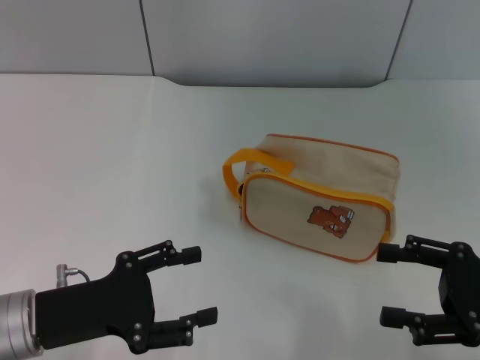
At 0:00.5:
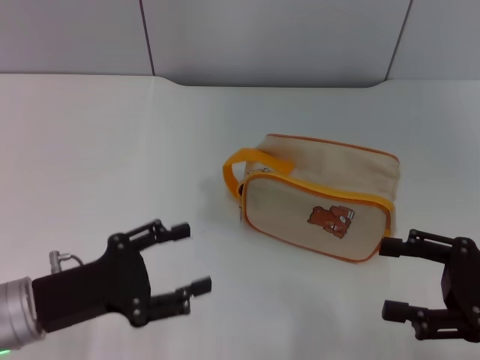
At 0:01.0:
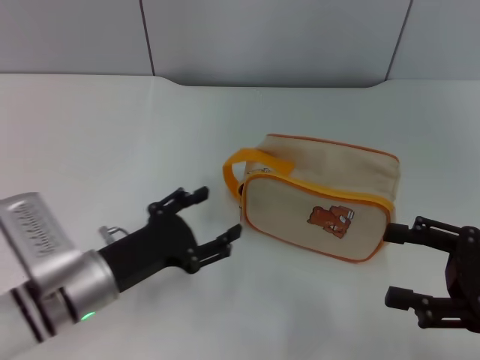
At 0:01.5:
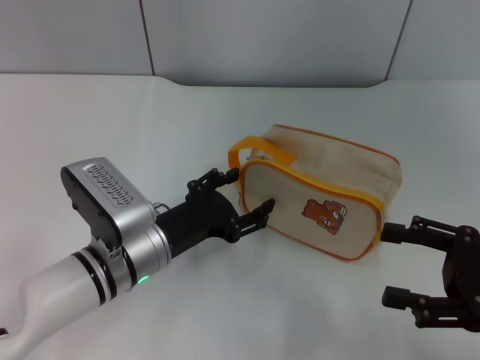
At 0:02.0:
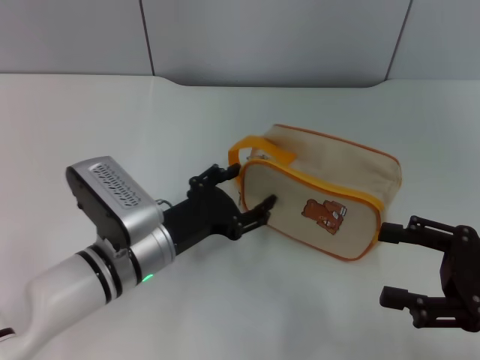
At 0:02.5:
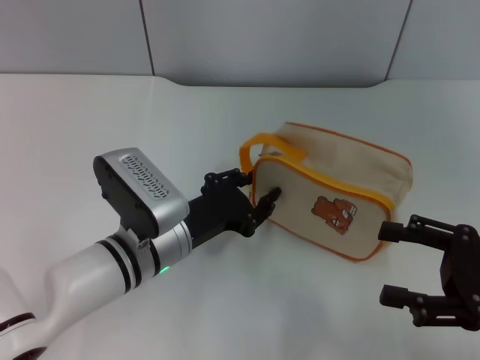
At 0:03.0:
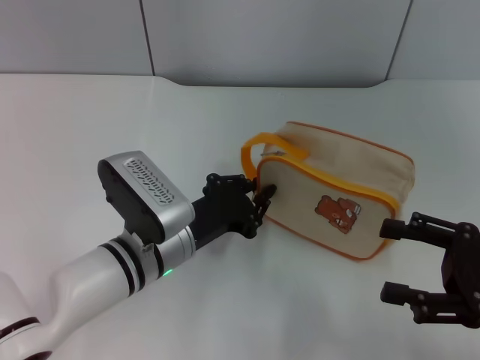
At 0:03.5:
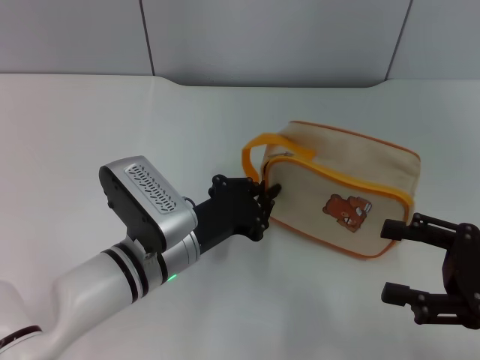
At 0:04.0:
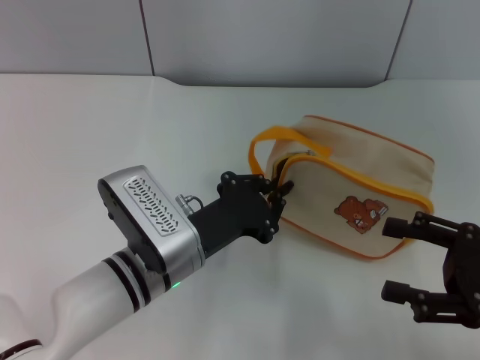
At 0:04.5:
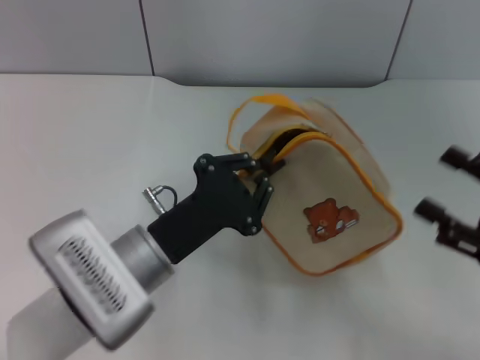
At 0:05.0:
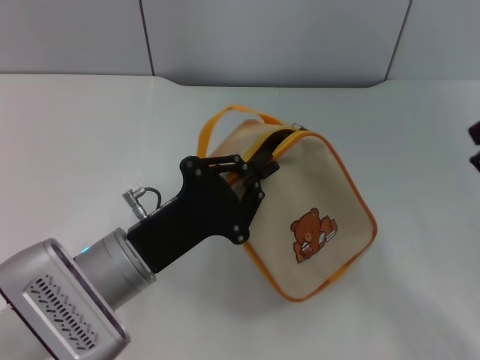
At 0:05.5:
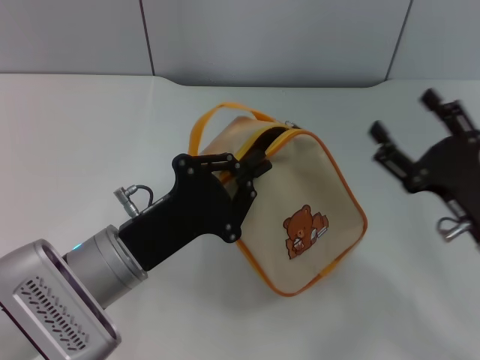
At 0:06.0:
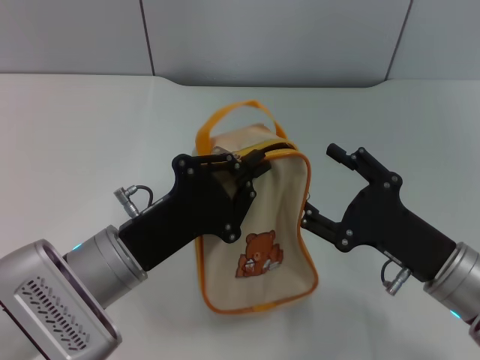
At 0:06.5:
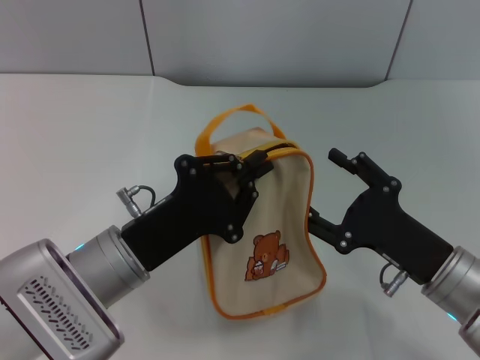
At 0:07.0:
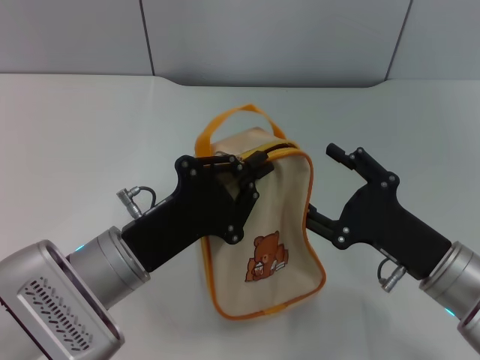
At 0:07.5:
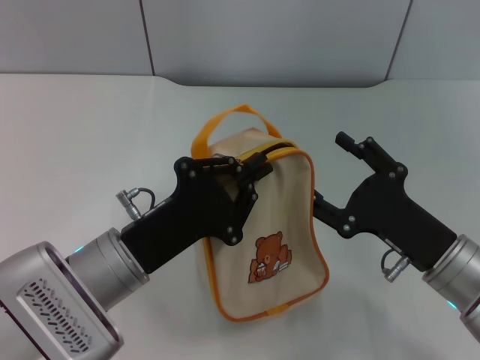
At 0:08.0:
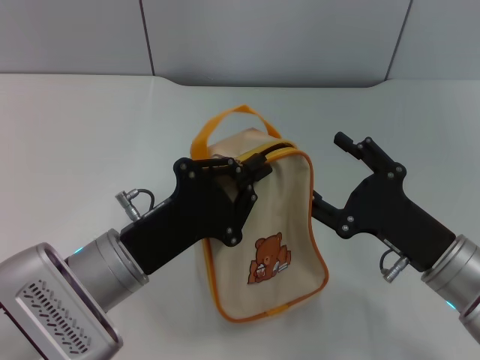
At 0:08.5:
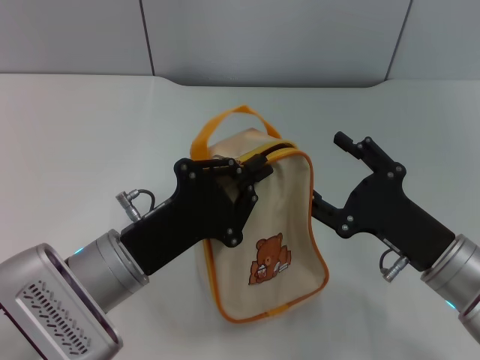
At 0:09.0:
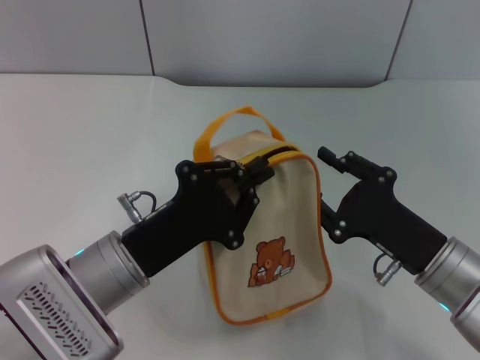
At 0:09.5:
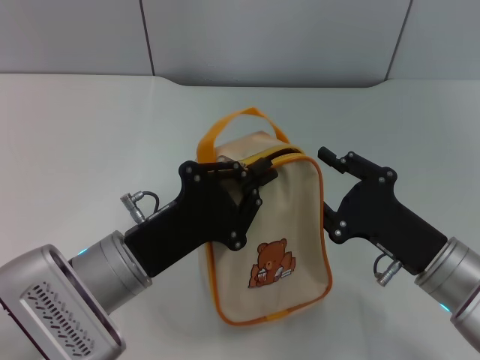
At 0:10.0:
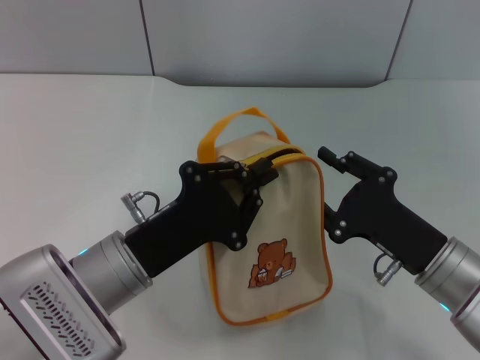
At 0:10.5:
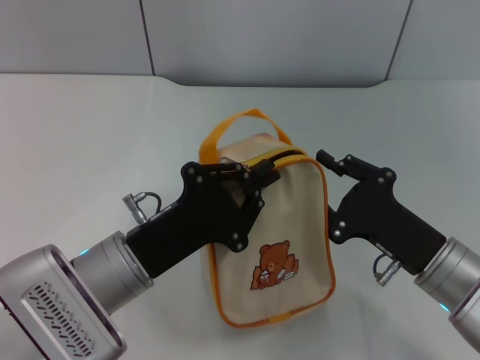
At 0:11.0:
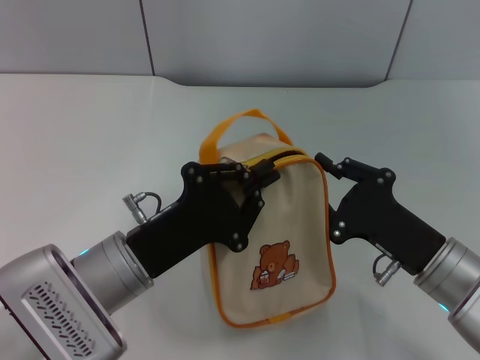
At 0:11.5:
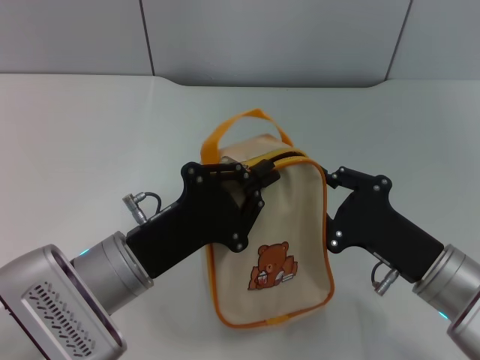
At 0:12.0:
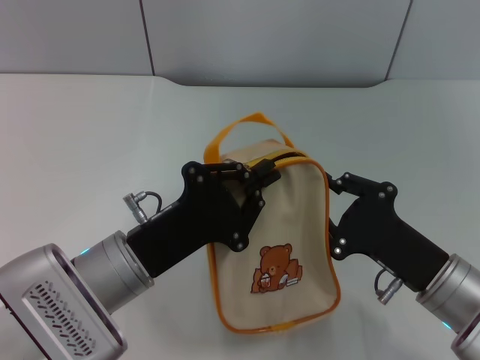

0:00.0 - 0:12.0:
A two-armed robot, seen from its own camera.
Step, 0:00.0 - 0:04.5: Pick up the bag with left gripper.
0:00.0 - 0:02.0: The left gripper moves to the right and forward, about 15 cm.
0:02.0 - 0:04.0: The left gripper closes its fingers.
0:04.0 - 0:06.0: The left gripper shifts by approximately 5 cm, while the right gripper goes some 10 cm to the left and downward.
0:06.0 - 0:08.0: Neither gripper changes place.
0:08.0 - 0:10.0: The right gripper closes.
0:10.0 - 0:12.0: There are only small adjustments of the grippers.

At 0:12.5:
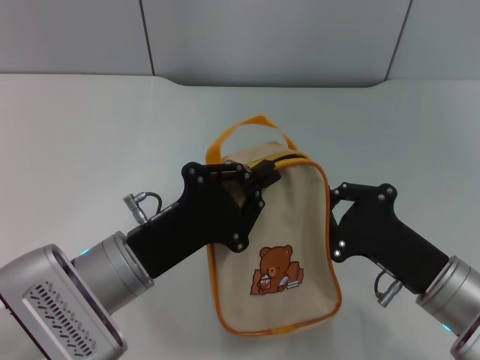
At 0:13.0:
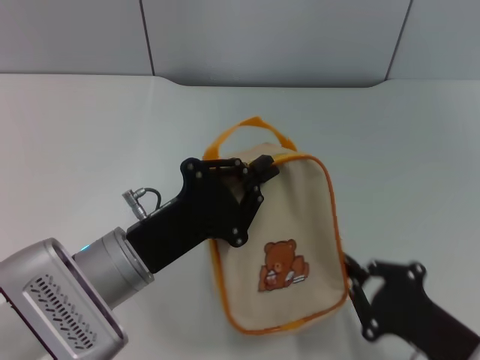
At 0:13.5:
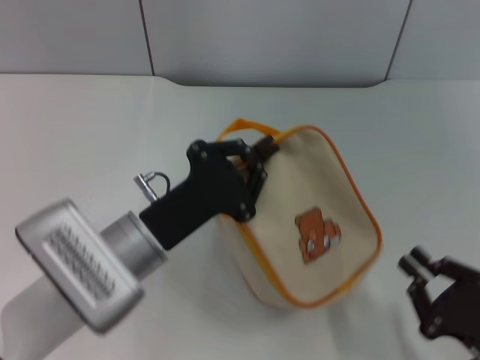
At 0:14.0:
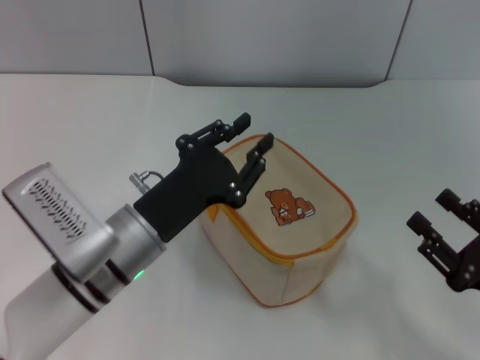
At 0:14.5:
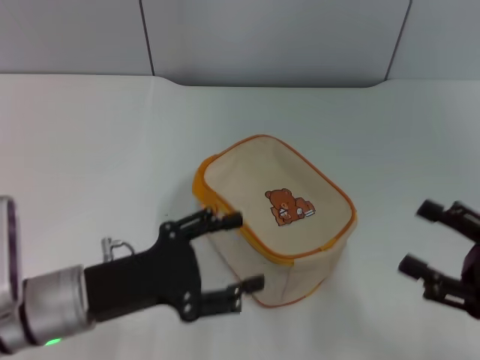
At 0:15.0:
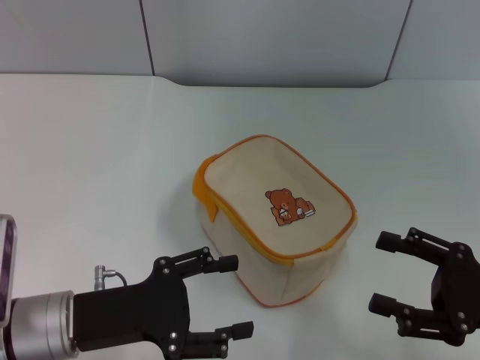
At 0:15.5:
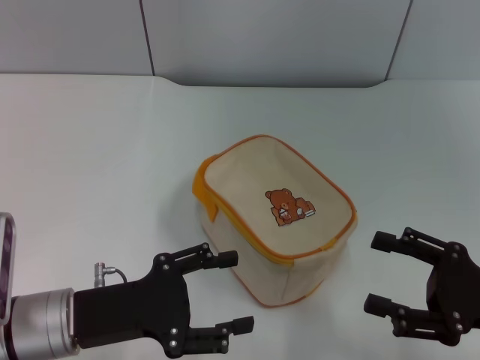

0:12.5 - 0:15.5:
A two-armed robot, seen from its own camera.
0:12.5 - 0:14.0: The right gripper shifts some 10 cm to the right and backward, and opens up.
0:14.0 - 0:15.5: The left gripper moves to the left, about 10 cm, and opens up. Meanwhile the right gripper ends up approximately 5 cm from where it was, and opens its fingers.

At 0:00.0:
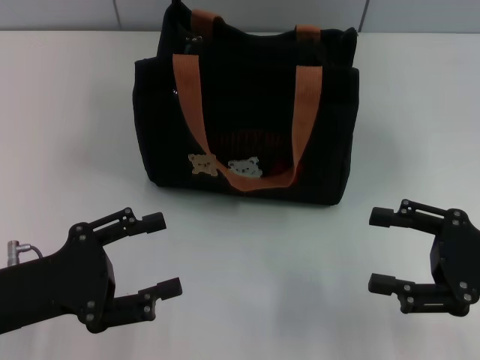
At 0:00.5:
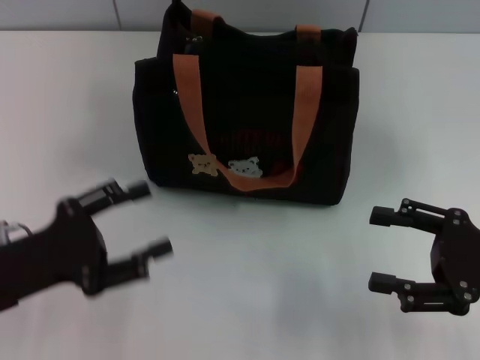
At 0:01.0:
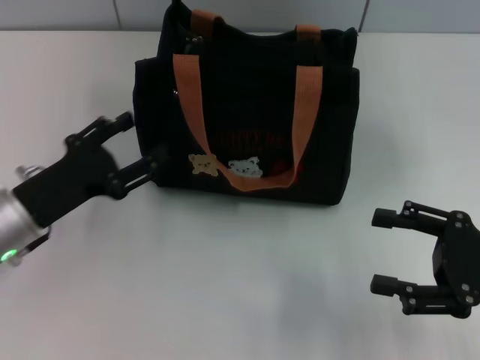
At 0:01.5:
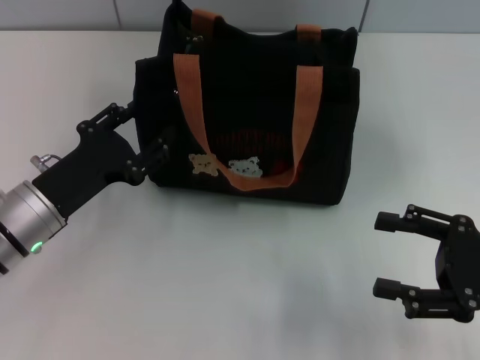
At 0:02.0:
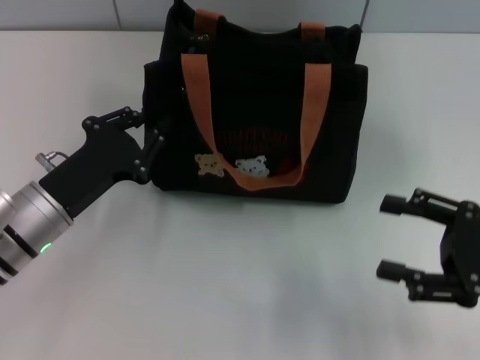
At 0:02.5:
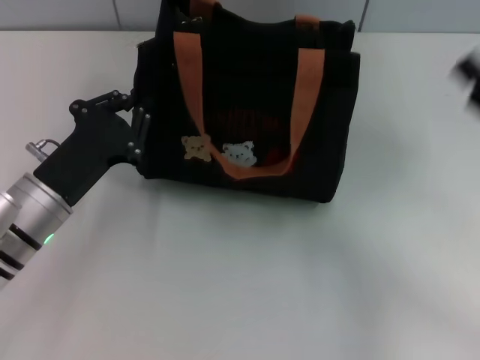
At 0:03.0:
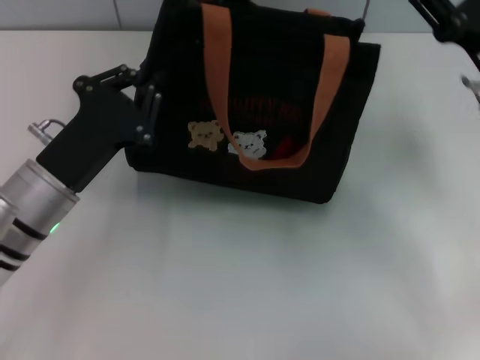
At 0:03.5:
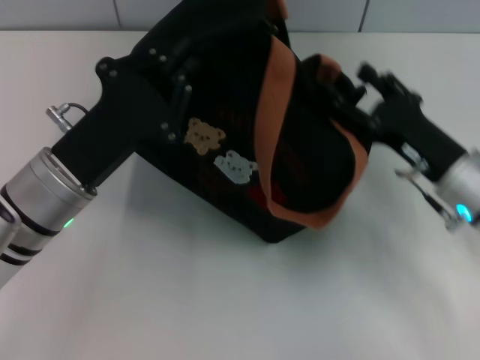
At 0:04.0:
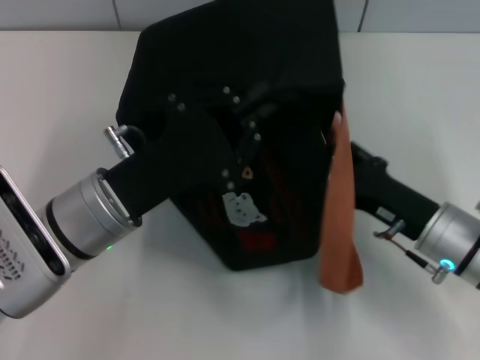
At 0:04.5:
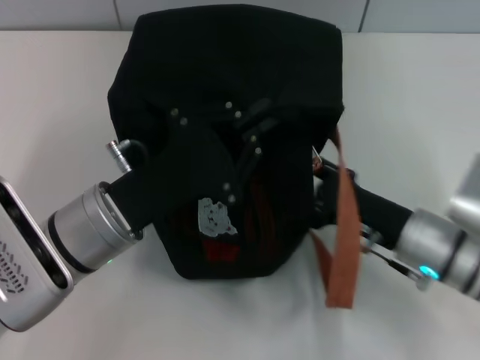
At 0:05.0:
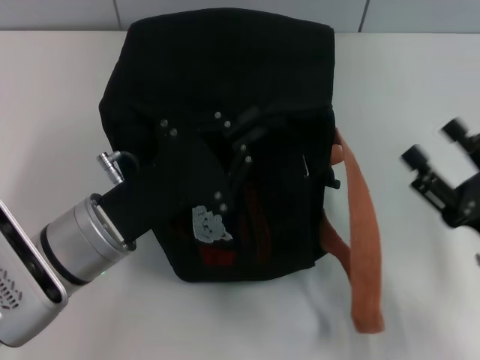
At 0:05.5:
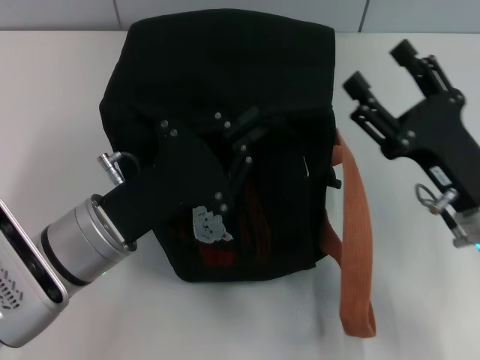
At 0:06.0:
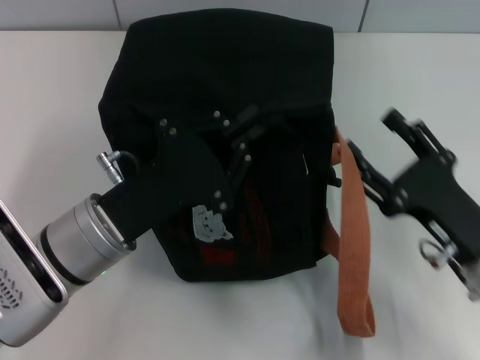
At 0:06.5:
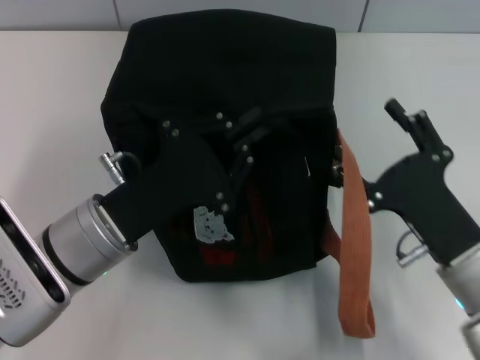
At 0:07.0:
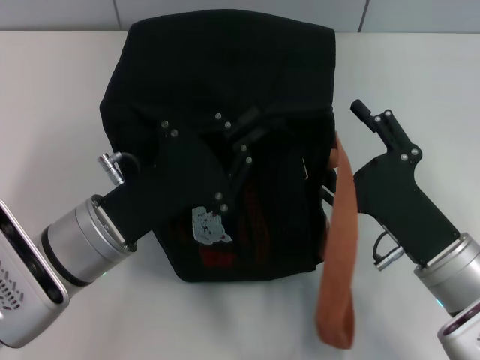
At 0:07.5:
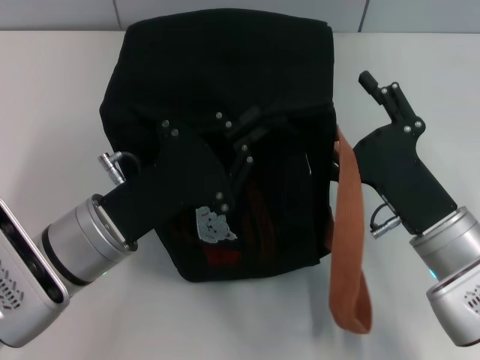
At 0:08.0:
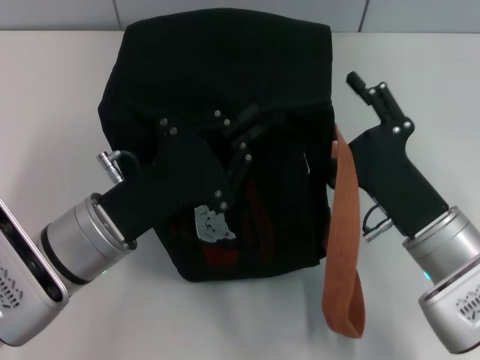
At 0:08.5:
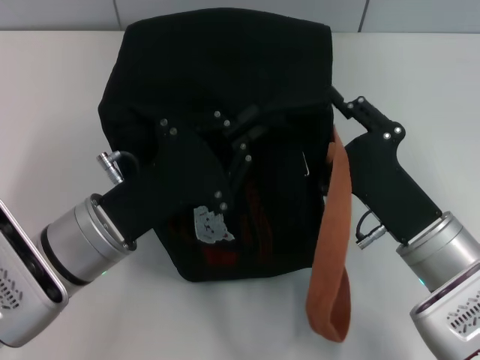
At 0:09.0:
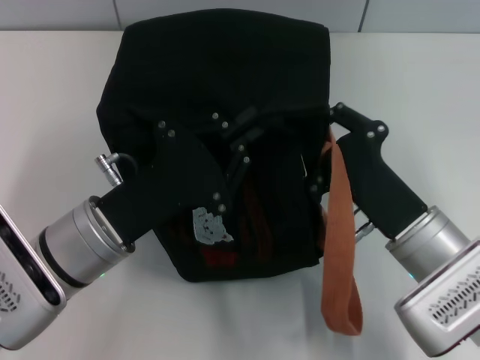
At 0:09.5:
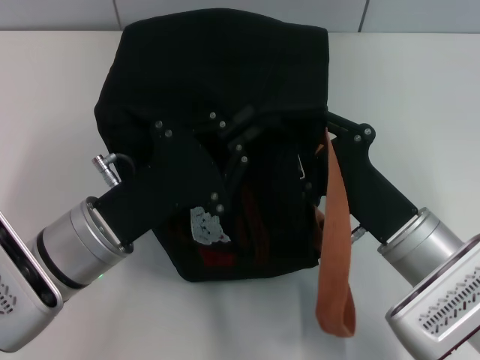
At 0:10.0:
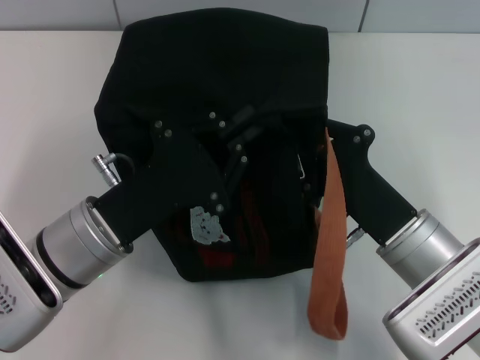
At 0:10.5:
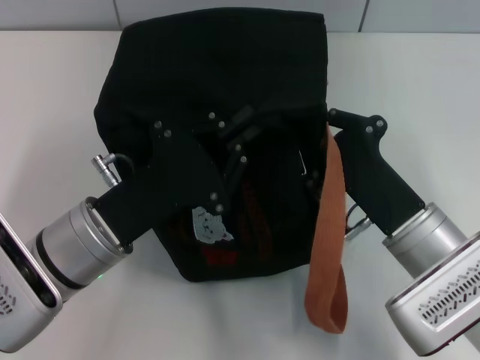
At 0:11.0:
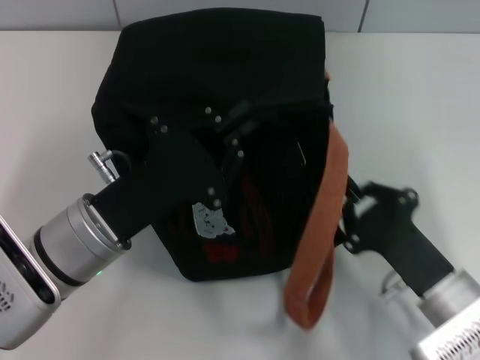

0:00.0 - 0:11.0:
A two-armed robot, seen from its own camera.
0:00.0 - 0:02.0: The left gripper goes about 10 cm forward, and closes.
0:02.0 - 0:03.5: The left gripper shifts by about 5 cm, and closes, while the right gripper shifts roughly 10 cm forward and to the left.
0:07.5 - 0:09.0: The right gripper closes its fingers.
0:09.0 - 0:11.0: The right gripper shifts by some 5 cm, and closes up.
